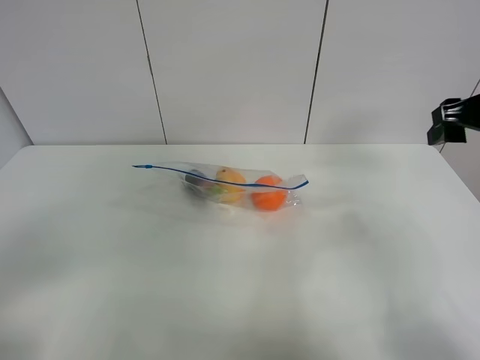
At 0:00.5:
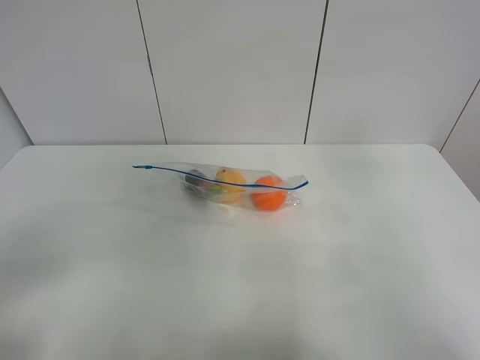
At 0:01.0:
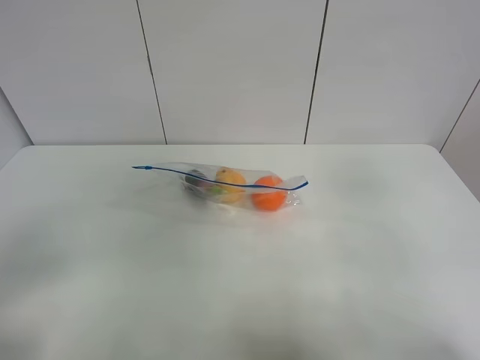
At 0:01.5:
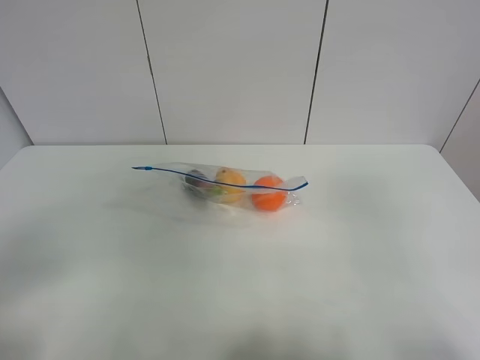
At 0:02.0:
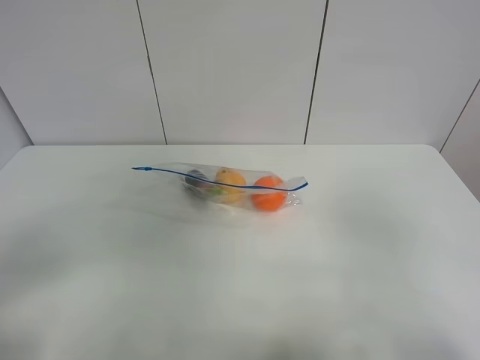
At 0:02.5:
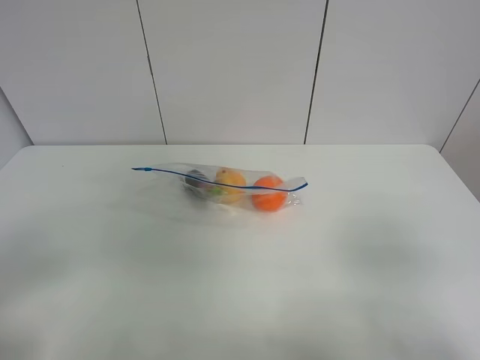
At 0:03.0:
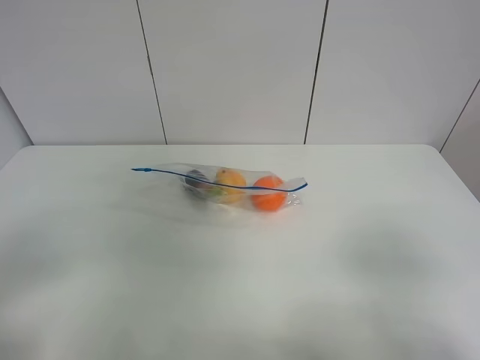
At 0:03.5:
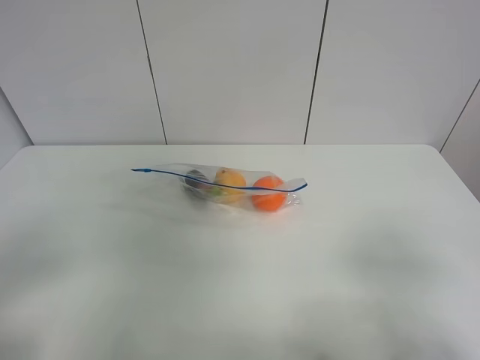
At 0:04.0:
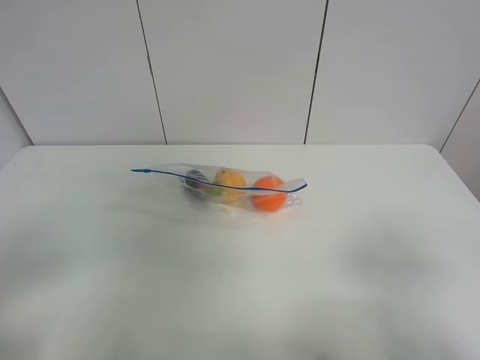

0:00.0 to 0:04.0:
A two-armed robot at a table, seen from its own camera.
0:00.0 to 0:02.0: The right gripper heads backward, covering approximately 25 cm.
